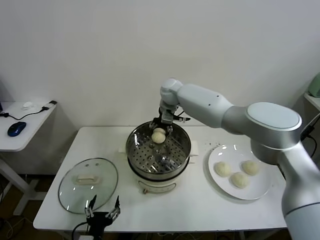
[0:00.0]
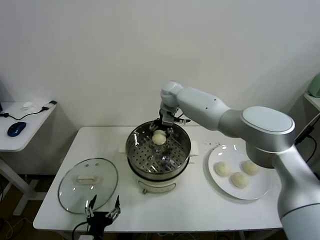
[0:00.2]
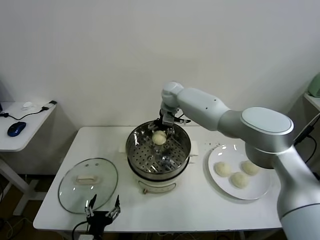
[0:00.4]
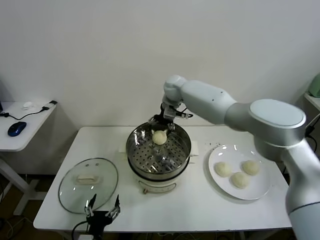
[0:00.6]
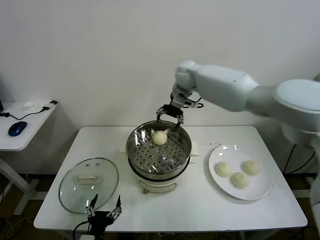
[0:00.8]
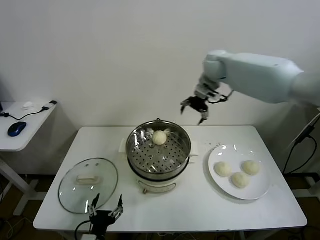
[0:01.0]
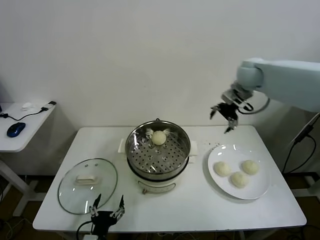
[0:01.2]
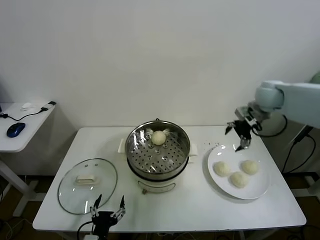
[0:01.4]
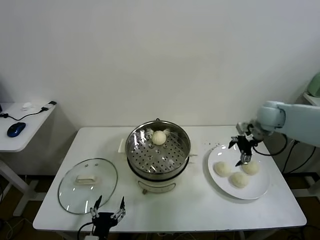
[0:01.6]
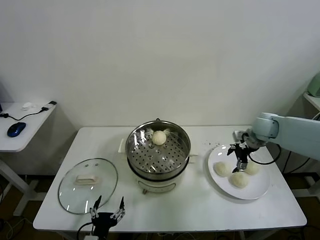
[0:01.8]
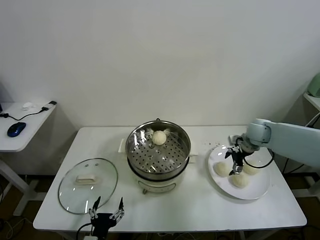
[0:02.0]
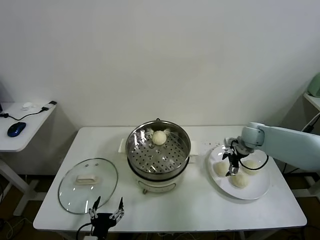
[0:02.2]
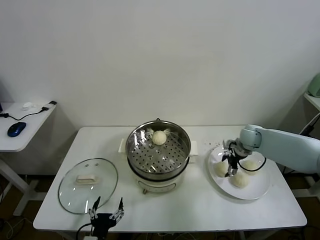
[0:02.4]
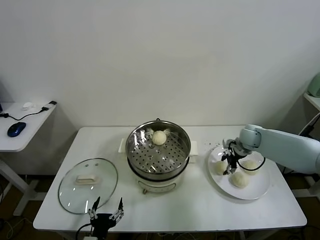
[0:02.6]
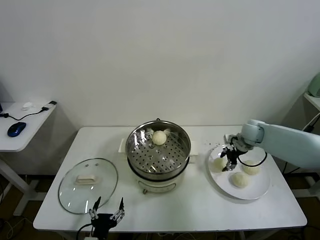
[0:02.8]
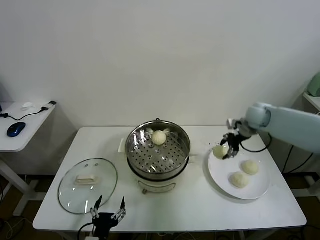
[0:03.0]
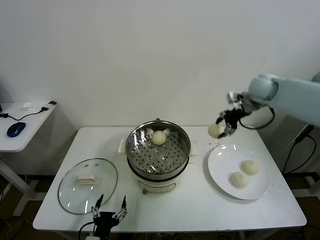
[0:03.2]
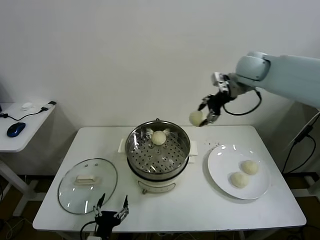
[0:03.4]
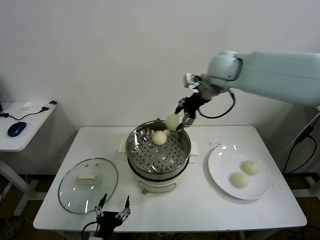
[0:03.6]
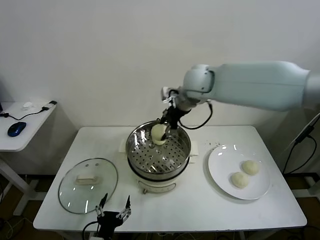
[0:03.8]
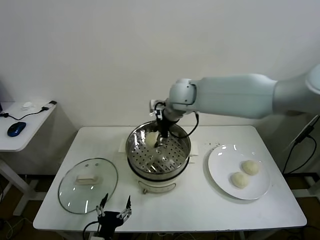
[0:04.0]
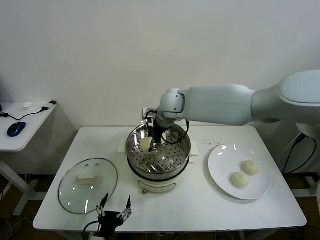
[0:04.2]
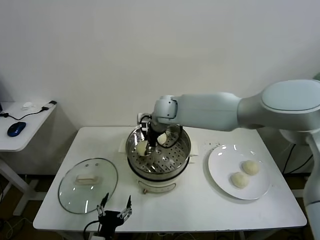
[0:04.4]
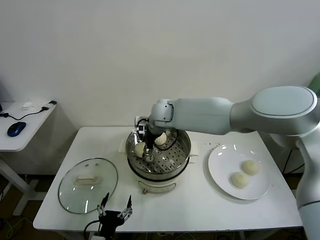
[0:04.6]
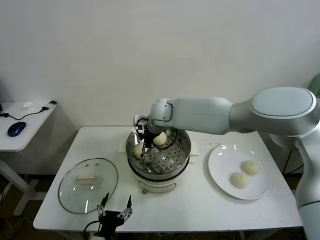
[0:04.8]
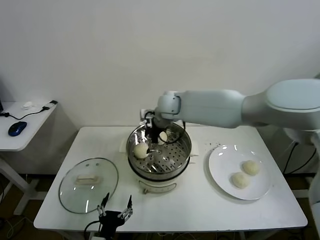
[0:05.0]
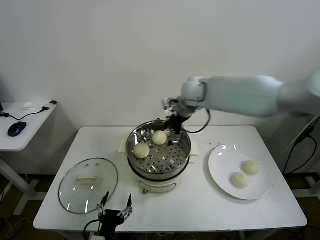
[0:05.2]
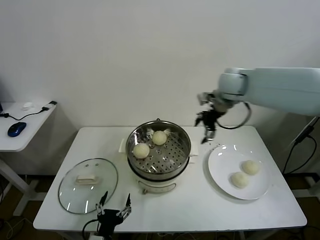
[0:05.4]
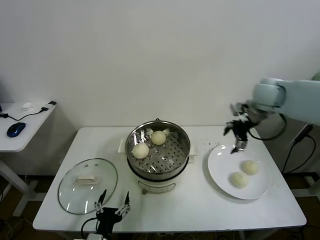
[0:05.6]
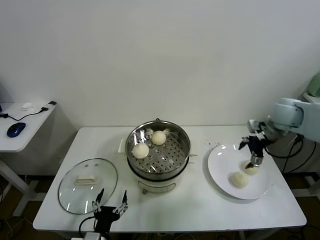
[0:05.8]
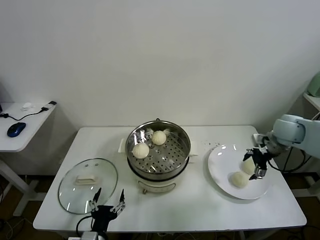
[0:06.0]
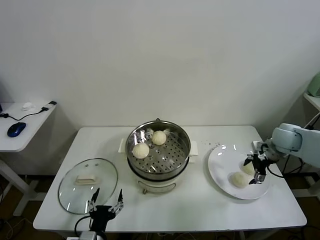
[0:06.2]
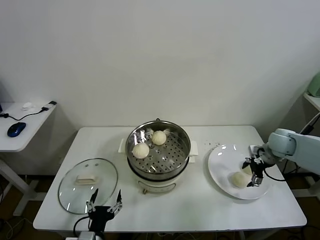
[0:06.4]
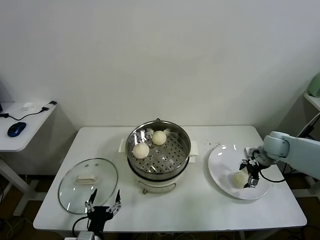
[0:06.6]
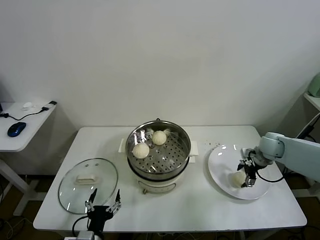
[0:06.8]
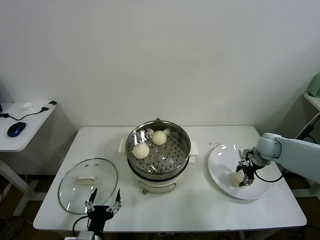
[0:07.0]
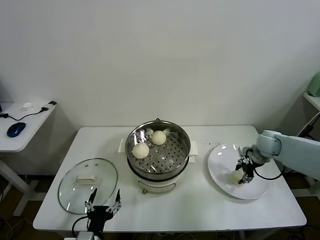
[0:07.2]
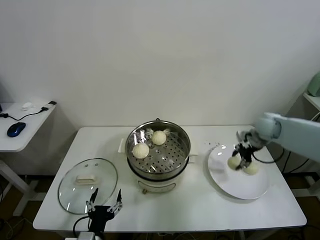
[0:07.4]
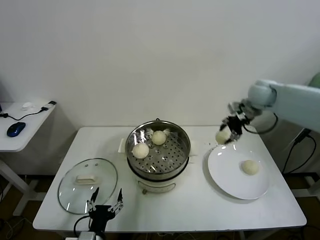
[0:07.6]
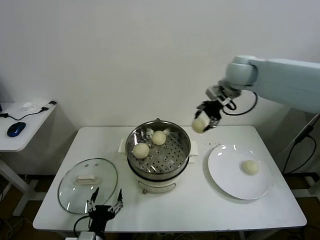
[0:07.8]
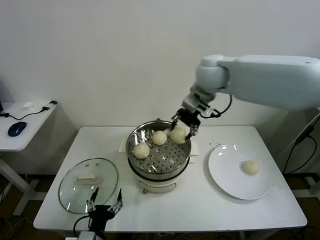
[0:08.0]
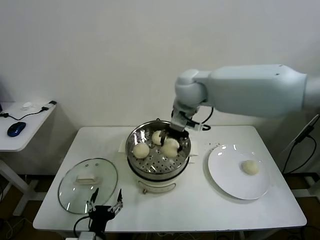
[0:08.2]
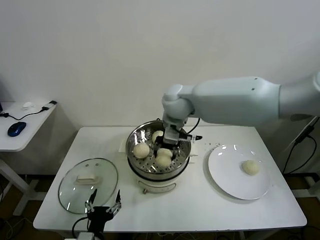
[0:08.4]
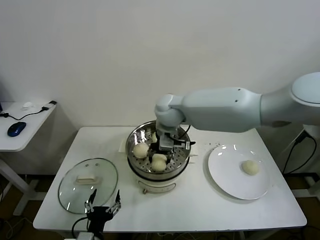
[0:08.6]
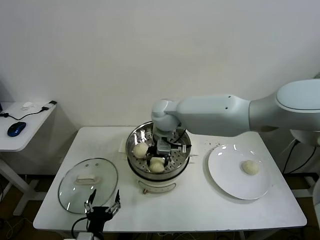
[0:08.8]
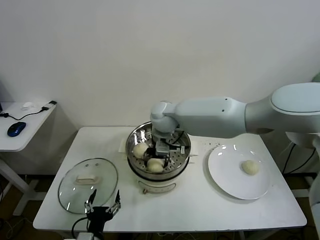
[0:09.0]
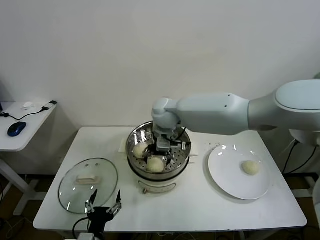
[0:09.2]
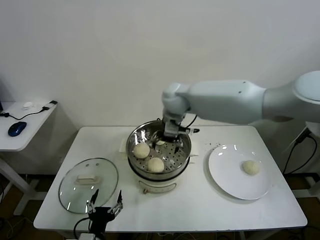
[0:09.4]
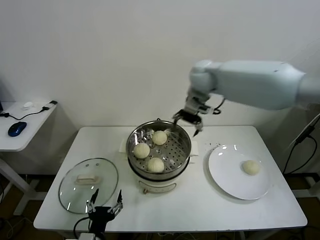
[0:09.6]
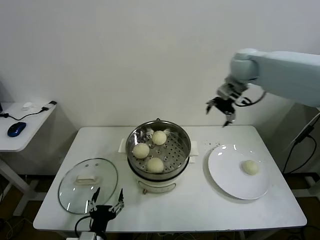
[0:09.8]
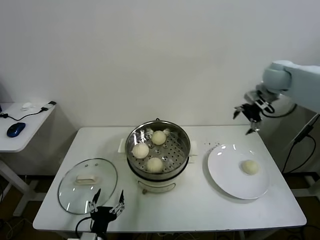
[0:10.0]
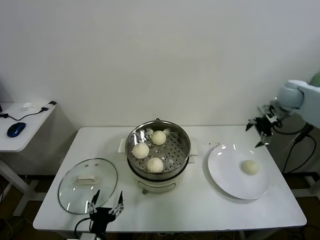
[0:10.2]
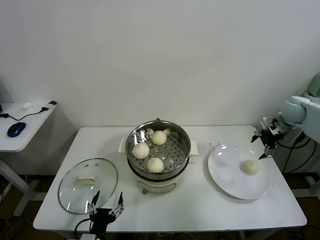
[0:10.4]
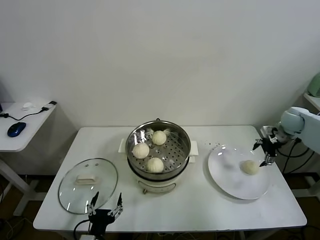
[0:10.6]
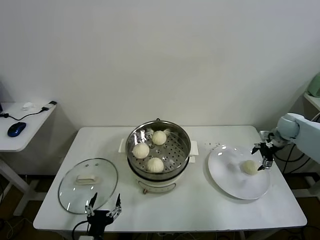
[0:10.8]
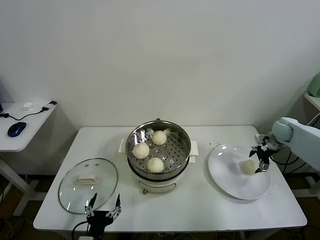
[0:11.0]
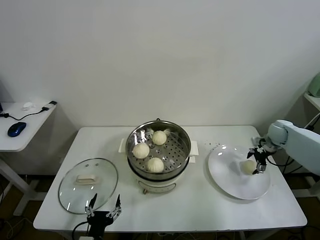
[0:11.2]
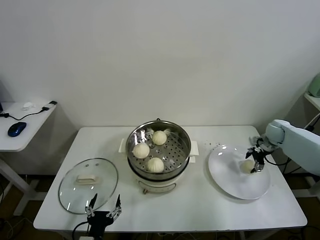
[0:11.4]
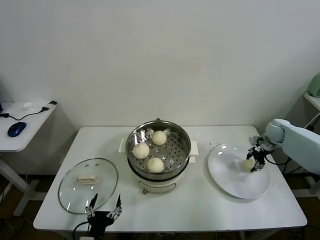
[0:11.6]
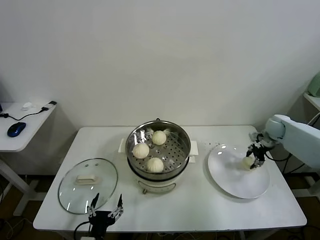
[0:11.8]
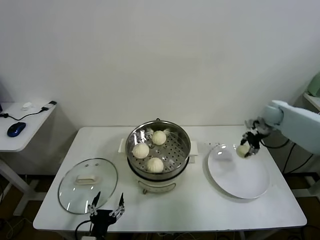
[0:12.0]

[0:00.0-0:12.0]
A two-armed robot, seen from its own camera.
Task of the whole recording: take steamed baozi put them in steamer.
Step, 0:00.6 to 0:02.6: Grasp the baozi in the plate with right gripper.
Step, 0:02.8 to 0:04.8: Place the baozi on the steamer with right gripper.
Step, 0:05.0 to 0:07.0: Grasp the baozi in the plate with right gripper.
Step, 0:07.4 to 0:09.2: Place the baozi on the steamer with right gripper.
Step, 0:09.4 to 0:11.4: Grasp the baozi in the plate with right gripper.
0:00.0 to 0:01.6: The right gripper travels to the right by some 35 cm, and opens its fingers.
0:01.6 to 0:03.0: The right gripper travels downward and back again, about 10 cm each way, and closes up.
0:03.0 to 0:04.4: The right gripper moves to the left, approximately 35 cm.
0:04.4 to 0:06.0: The right gripper moves to the right, about 40 cm, and opens.
0:06.0 to 0:07.6: The right gripper goes some 20 cm upward, to the left and forward, and closes.
0:07.6 to 0:09.0: The right gripper moves to the left, some 30 cm, and opens its fingers.
0:09.0 to 0:10.4: The right gripper goes roughly 50 cm to the right.
0:10.4 to 0:12.0: The right gripper goes downward and returns, some 10 cm each way, and closes.

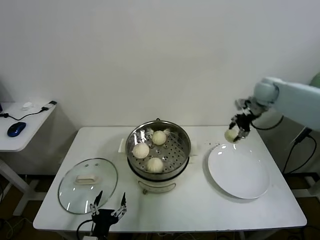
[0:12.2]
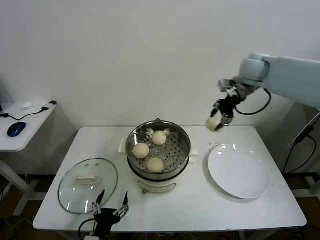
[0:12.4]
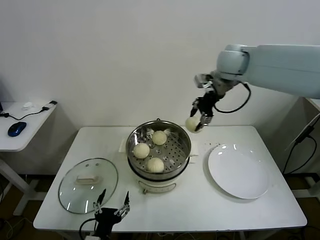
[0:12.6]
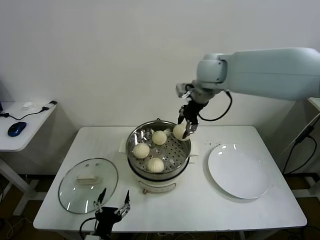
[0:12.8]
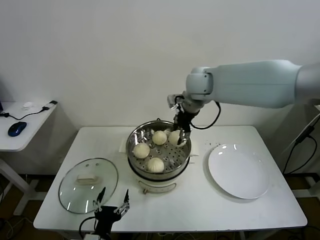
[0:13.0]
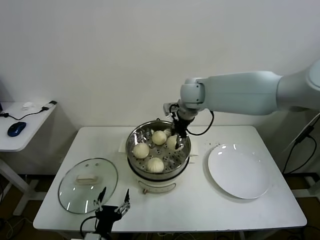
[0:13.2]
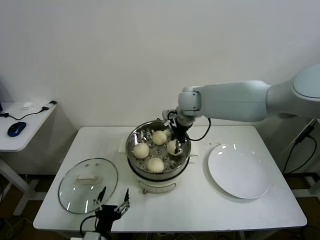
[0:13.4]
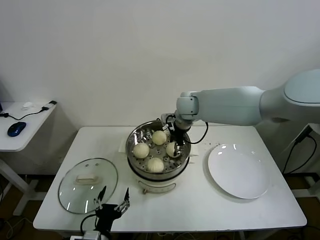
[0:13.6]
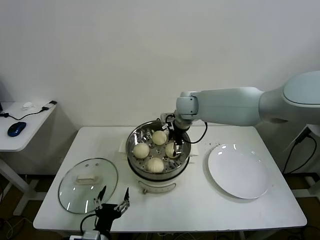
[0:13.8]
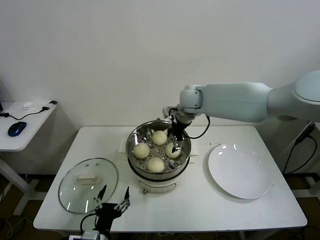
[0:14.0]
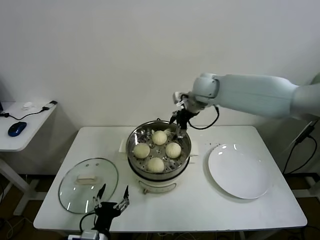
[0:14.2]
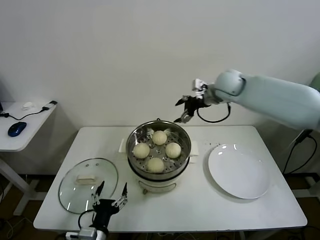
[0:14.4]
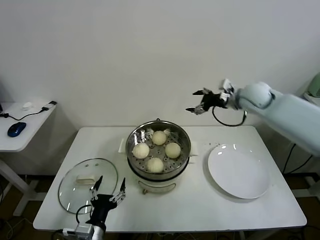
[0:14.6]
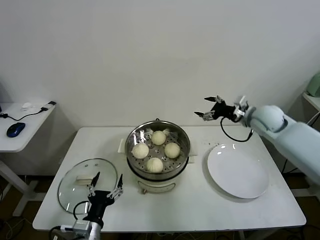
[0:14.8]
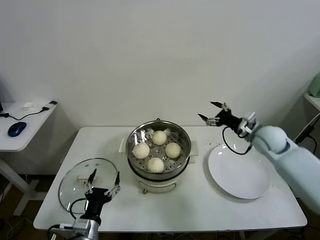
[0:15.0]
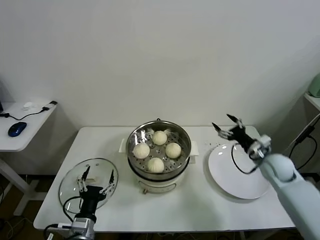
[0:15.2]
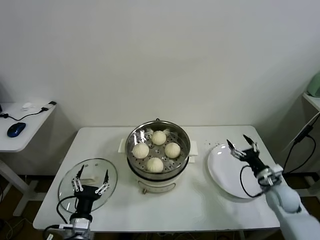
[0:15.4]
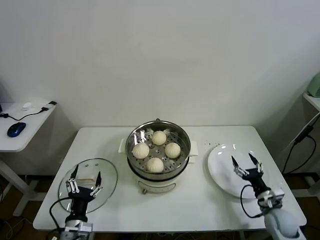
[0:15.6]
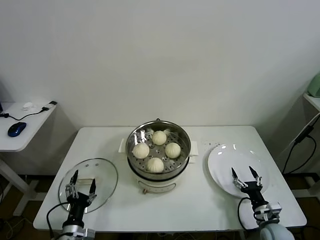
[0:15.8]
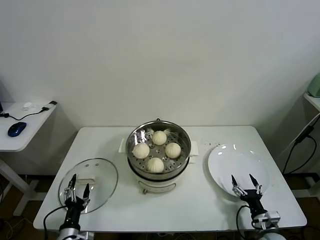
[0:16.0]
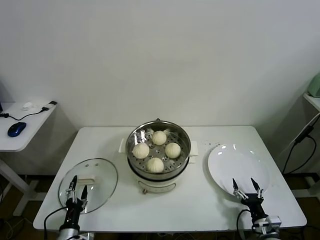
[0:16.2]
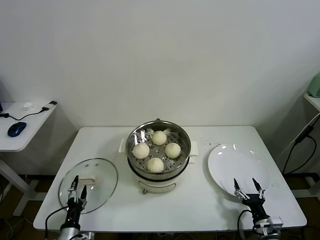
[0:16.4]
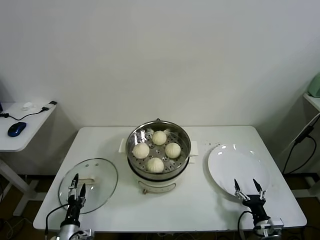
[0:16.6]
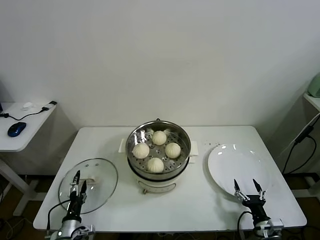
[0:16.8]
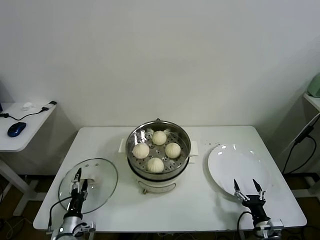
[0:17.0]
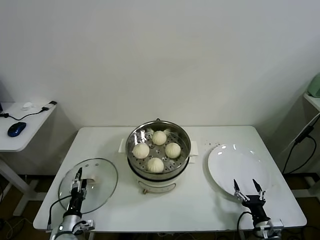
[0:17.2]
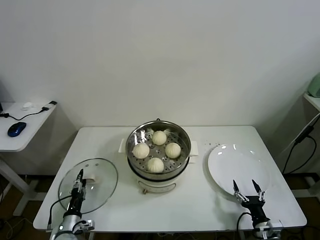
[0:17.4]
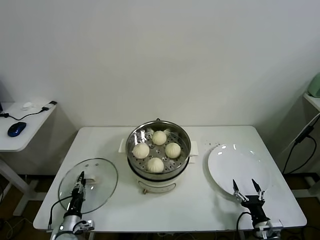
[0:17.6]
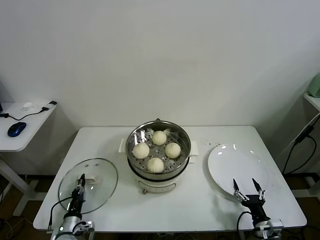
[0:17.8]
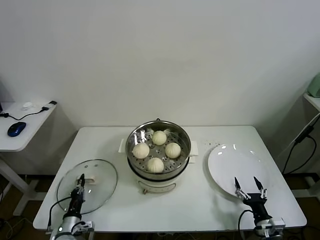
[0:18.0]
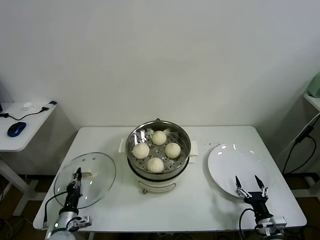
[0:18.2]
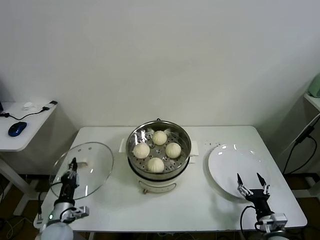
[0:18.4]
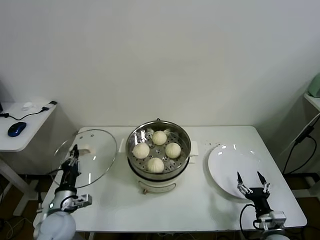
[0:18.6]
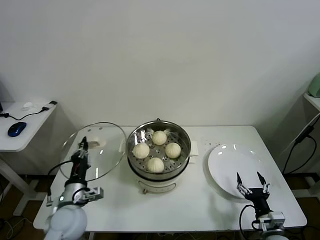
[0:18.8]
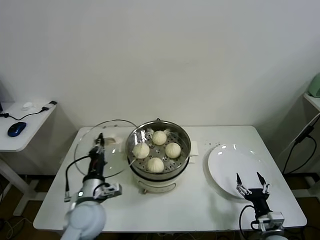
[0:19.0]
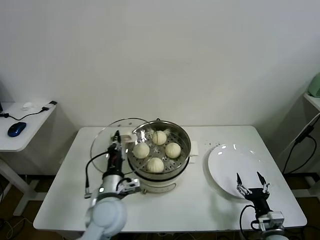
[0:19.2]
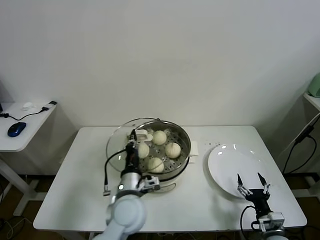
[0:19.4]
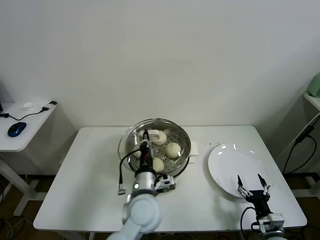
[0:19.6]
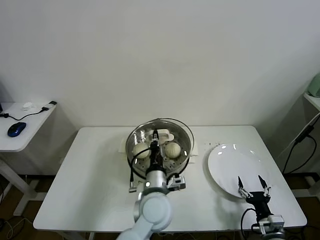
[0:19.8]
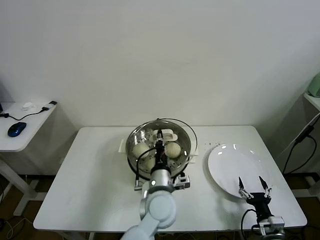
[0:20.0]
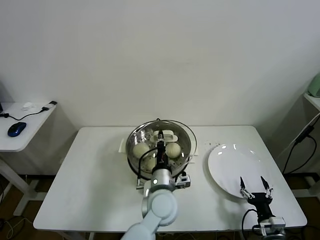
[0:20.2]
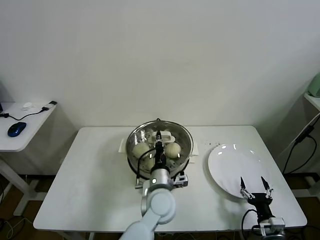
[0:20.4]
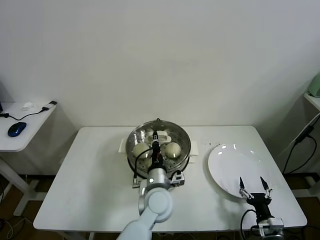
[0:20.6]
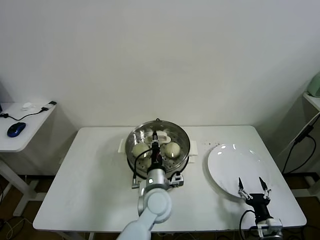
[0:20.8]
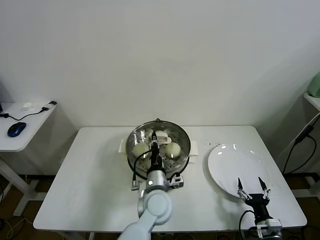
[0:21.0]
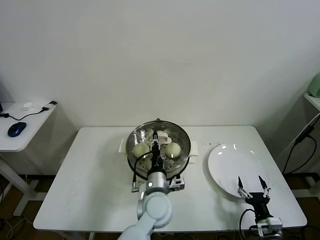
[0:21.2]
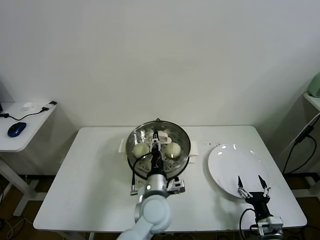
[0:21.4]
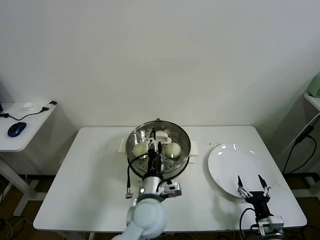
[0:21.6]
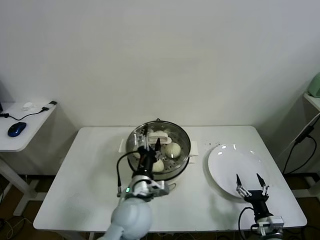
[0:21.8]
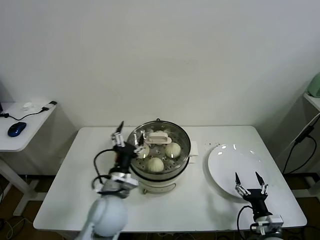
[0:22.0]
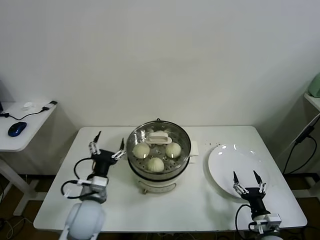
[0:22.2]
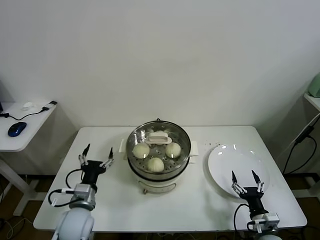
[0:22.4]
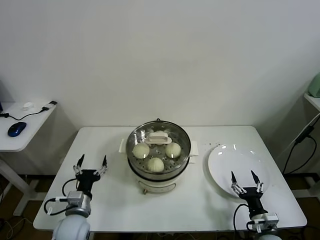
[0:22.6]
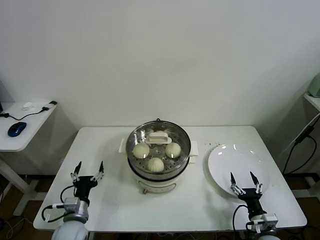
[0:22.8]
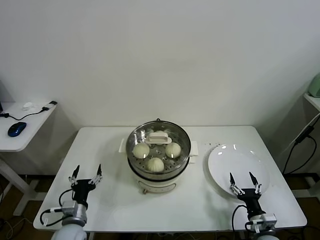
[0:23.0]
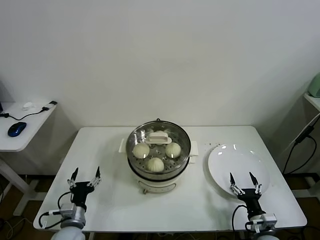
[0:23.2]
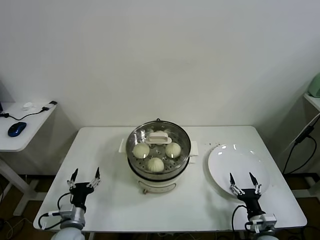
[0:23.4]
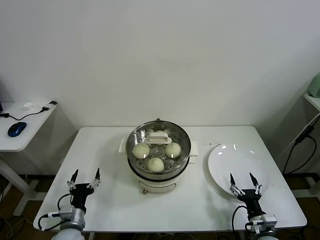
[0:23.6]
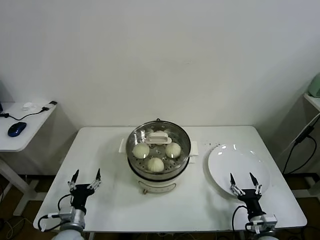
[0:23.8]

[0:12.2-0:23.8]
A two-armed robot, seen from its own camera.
Task of the whole recording: take steamed baozi put them in steamer.
Step, 0:12.2 to 0:13.8: Place the baozi on the steamer with right gripper.
Step, 0:14.0 to 0:18.0: Grasp the pot lid with left gripper.
Step, 0:18.2 to 0:21.6: Place the pot lid on the steamer with left gripper.
0:12.2 to 0:13.6: The right gripper moves to the left, approximately 25 cm.
0:13.6 to 0:15.0: The right gripper moves to the right, some 25 cm, and opens its fingers.
0:15.0 to 0:16.6: The left gripper heads downward and to the left, covering about 15 cm. Meanwhile the right gripper heads backward and downward, covering some 40 cm.
0:16.6 to 0:18.0: The left gripper closes up.
0:18.0 to 0:19.4: The left gripper heads to the right and upward, covering about 35 cm.
0:19.4 to 0:21.0: The left gripper is displaced to the right by roughly 10 cm.
0:21.0 to 0:22.4: The left gripper goes some 25 cm to the left, and opens.
0:22.4 to 0:23.8: The left gripper heads downward and to the left, covering some 10 cm.
